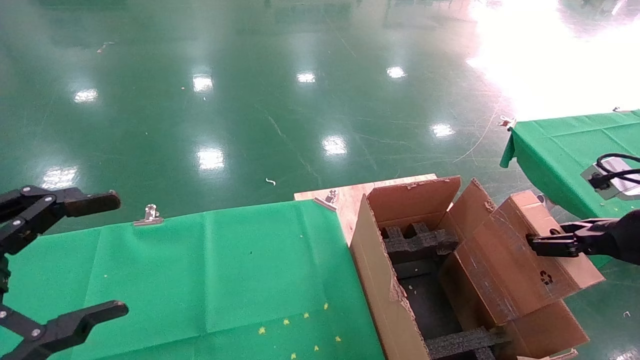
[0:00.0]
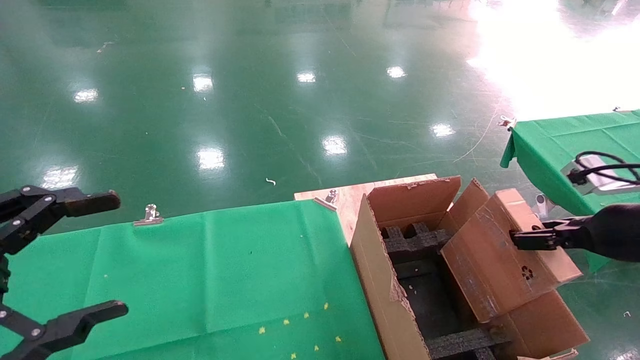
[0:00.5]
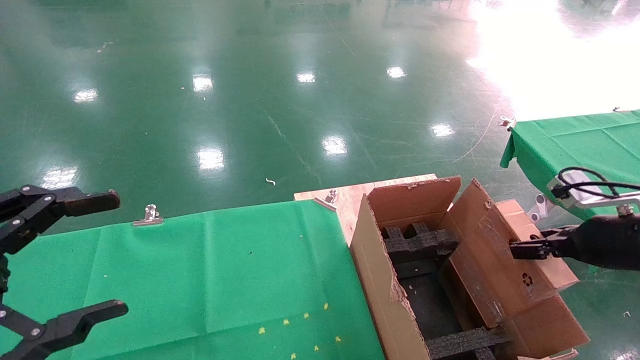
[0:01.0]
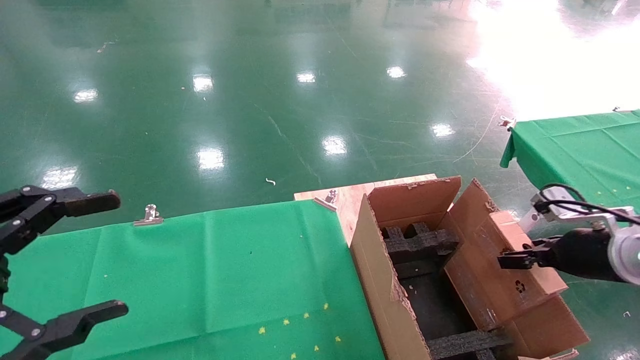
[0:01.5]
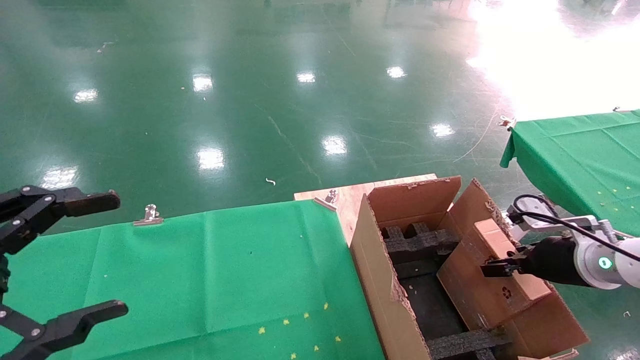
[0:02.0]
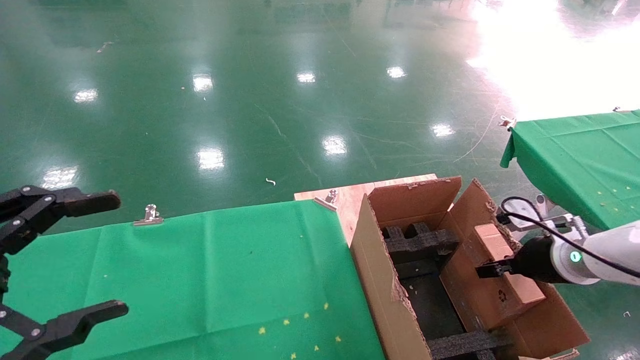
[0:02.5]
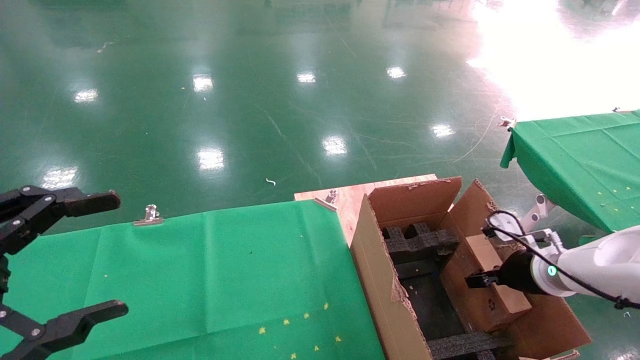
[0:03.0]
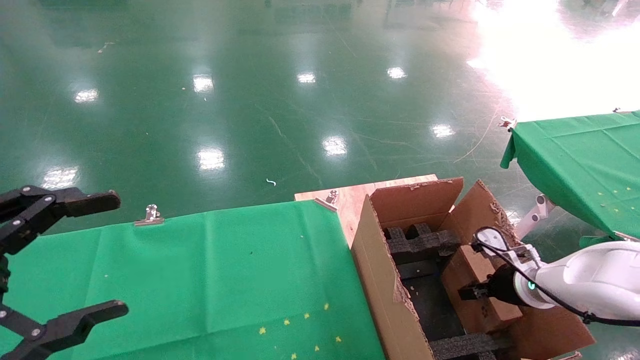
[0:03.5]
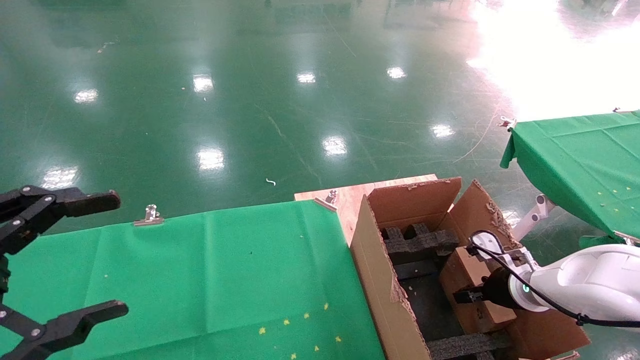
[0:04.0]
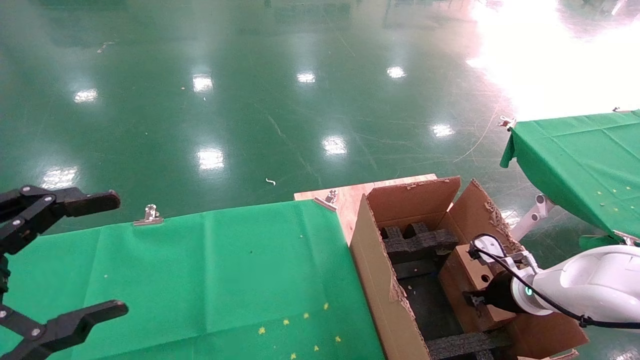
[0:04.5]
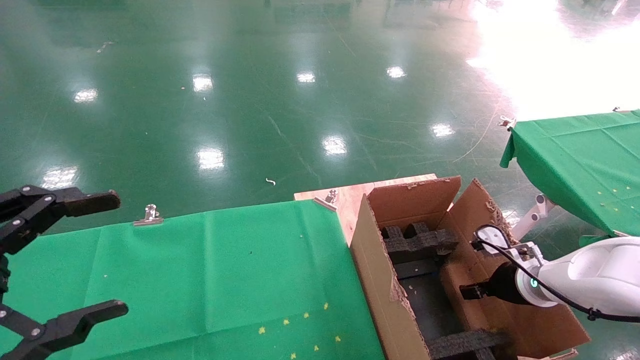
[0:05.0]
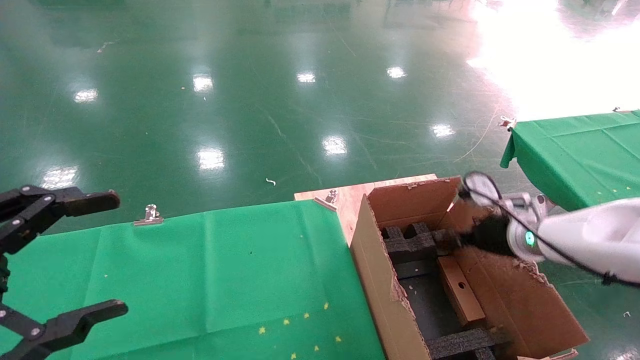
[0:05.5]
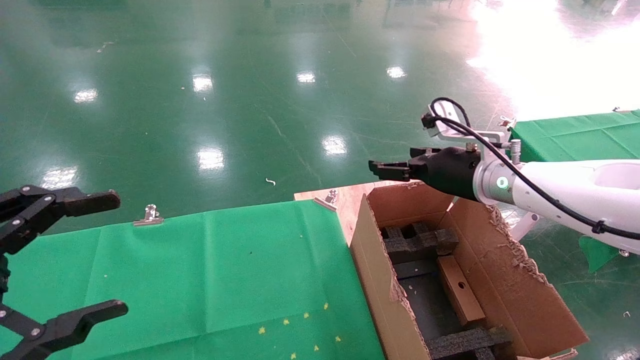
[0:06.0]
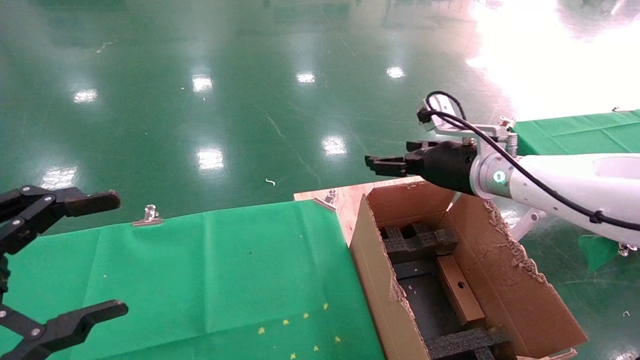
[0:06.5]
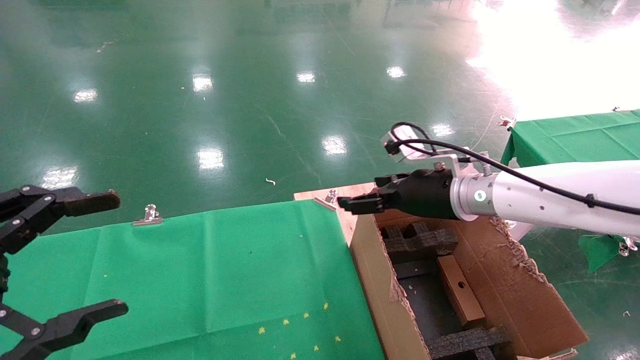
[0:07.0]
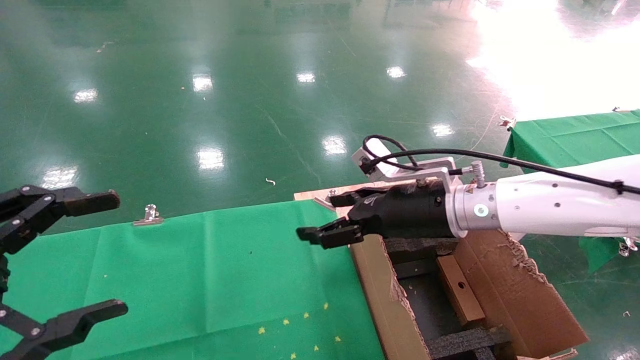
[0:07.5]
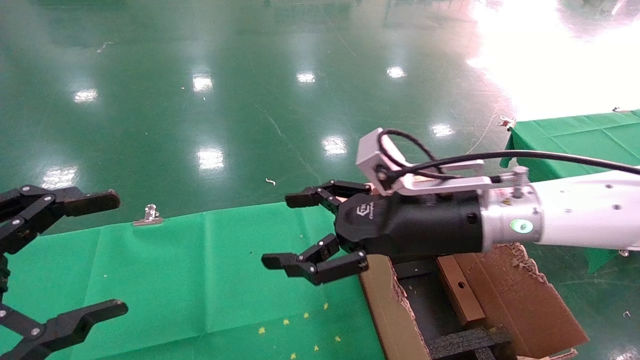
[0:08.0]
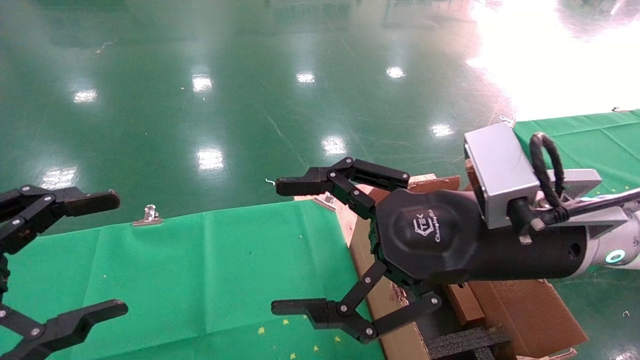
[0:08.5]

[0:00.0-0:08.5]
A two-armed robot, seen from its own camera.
Task of the whole recording: using a robotic arm to pick up a cardboard box and palace it the carton.
Step, 0:00.0 to 0:05.0: Place the mouse and the power cord paper box into the container.
0:00.0 to 0:02.0: The right gripper heads forward and downward, covering some 15 cm.
0:02.0 to 0:04.0: The right gripper travels downward and forward by about 10 cm.
0:04.0 to 0:06.5: The right gripper moves upward and to the left, approximately 20 cm, and opens.
0:06.5 to 0:08.5: The right gripper moves backward and to the left, roughly 20 cm.
